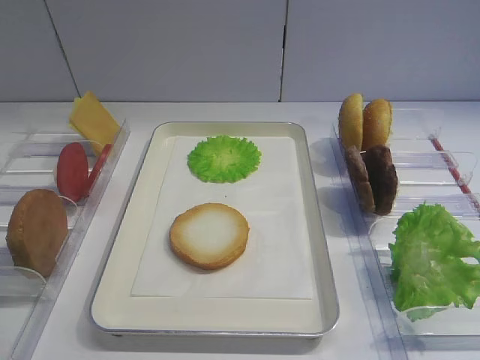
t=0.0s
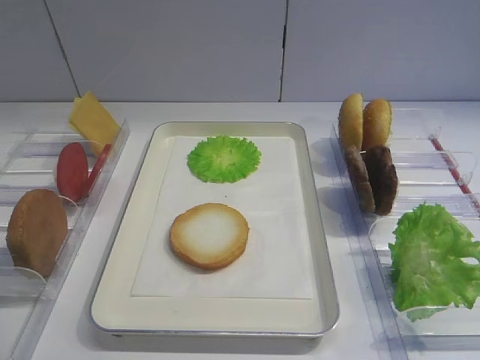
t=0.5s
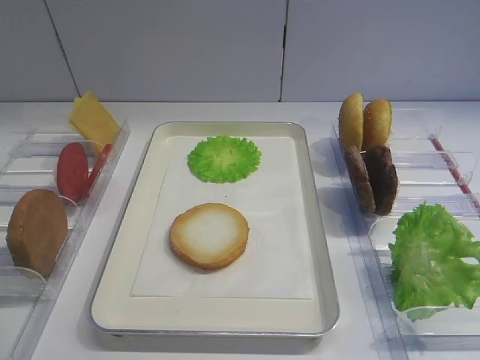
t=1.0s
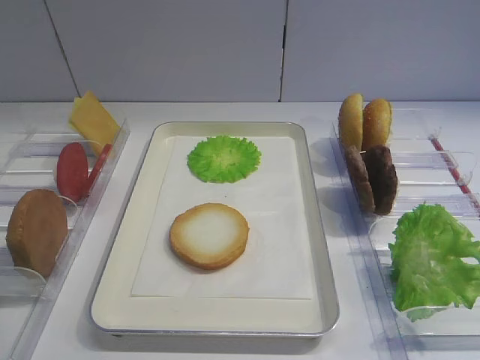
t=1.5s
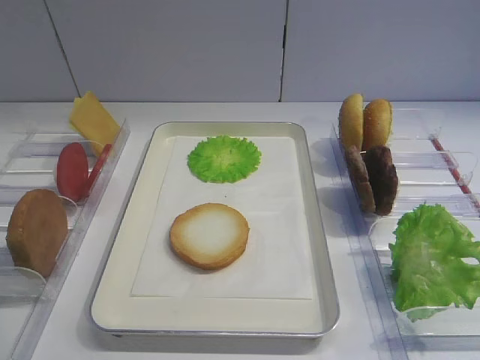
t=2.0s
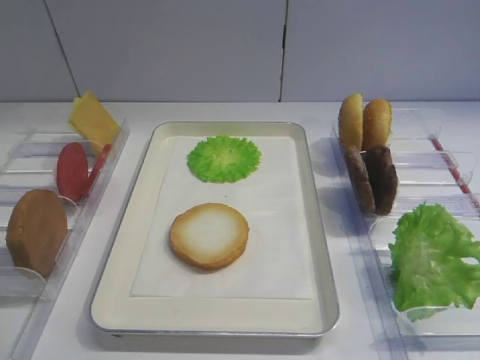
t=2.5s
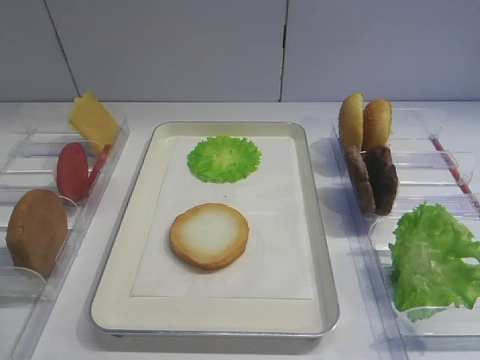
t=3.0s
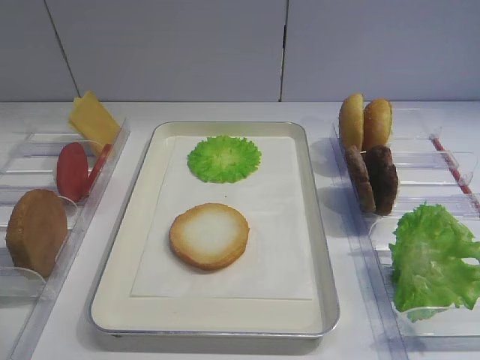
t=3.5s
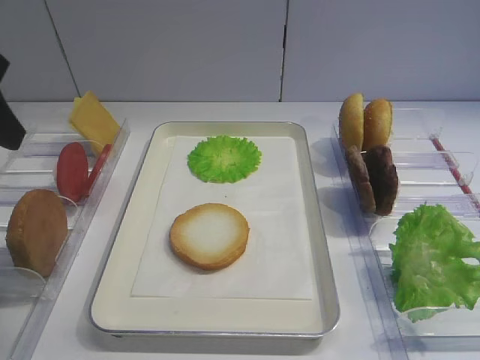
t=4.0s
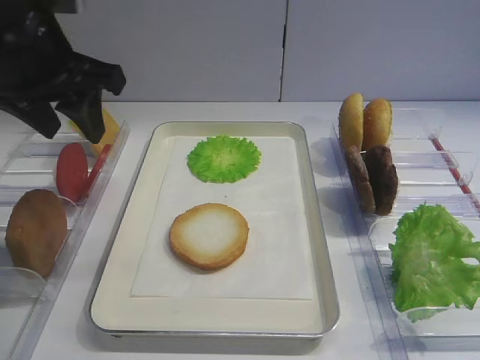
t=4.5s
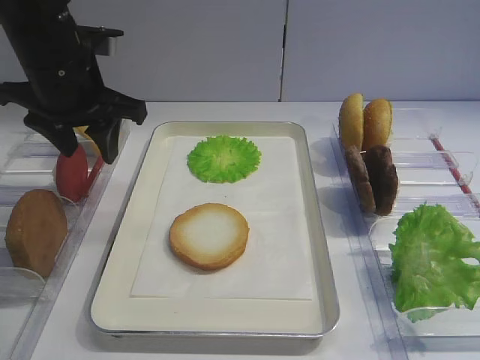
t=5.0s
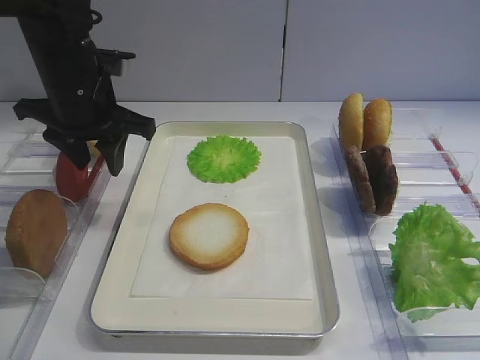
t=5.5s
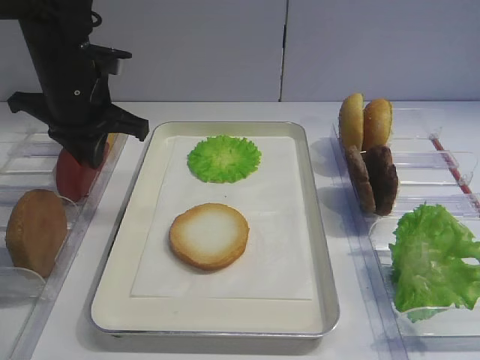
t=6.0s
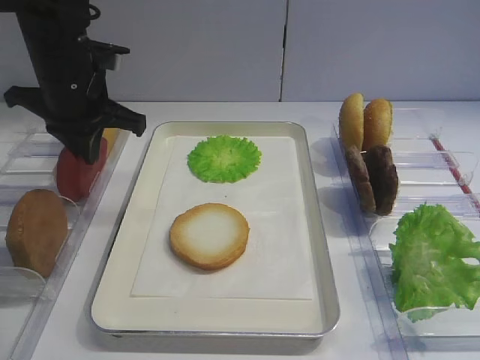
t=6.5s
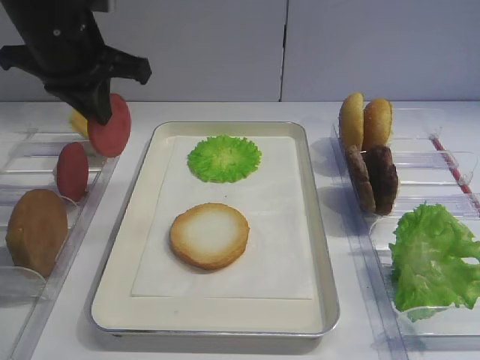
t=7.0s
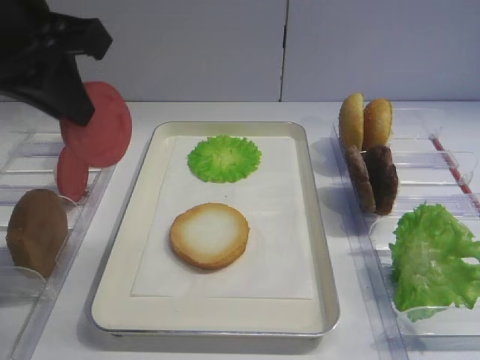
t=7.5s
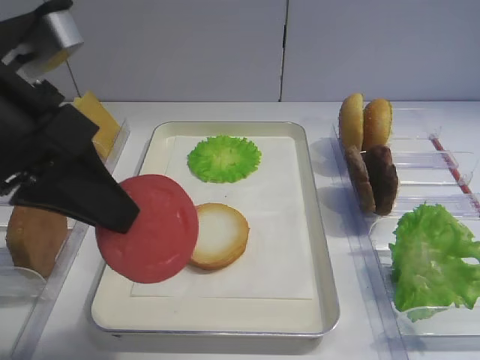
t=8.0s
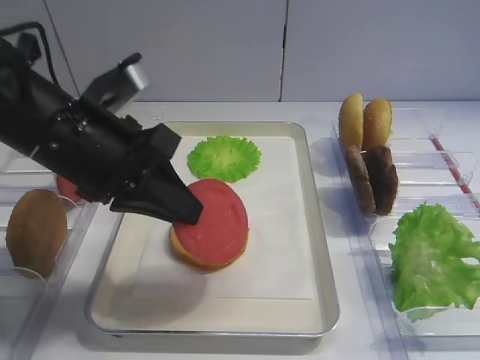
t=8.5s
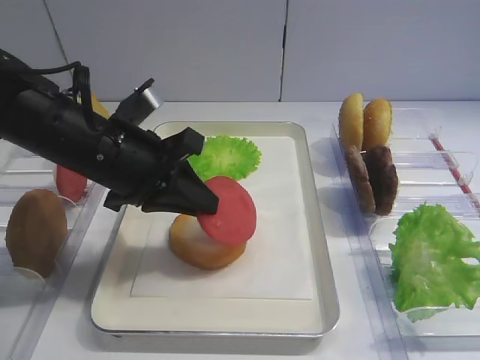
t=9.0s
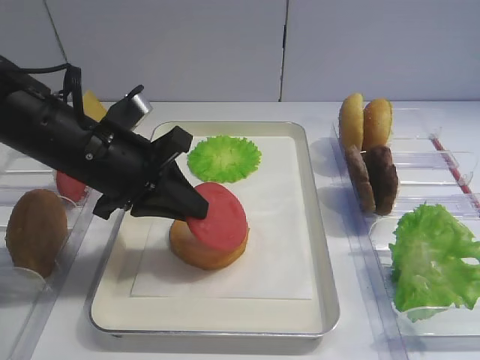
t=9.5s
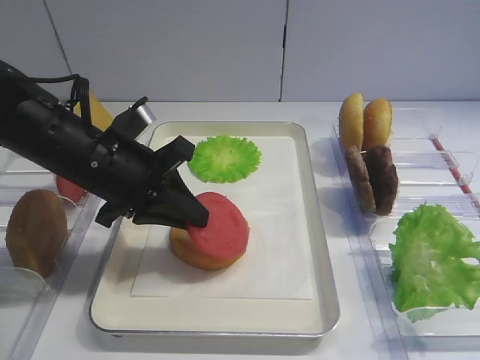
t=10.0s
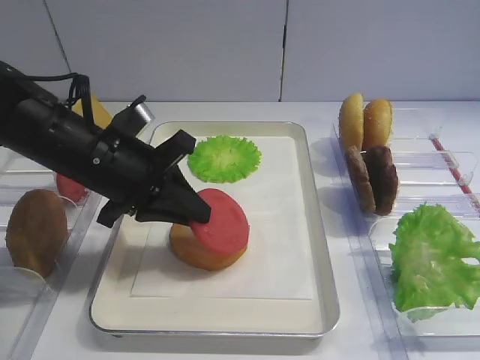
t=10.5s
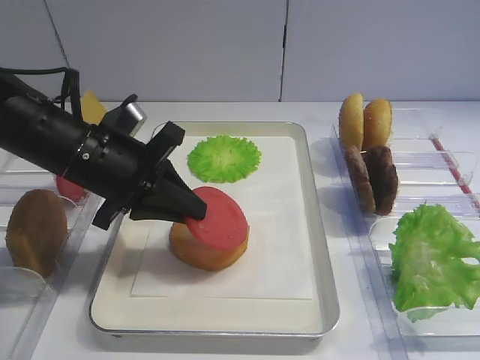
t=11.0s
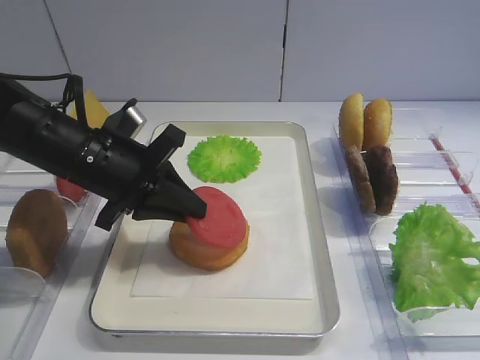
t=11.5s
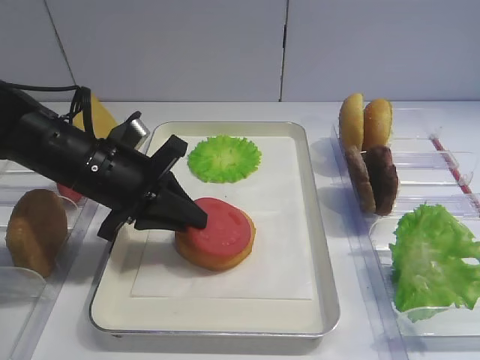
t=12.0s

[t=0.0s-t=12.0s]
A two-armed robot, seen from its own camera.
Step, t=0.0s to t=6.5s: Pick up the tomato slice with the left gripper.
t=2.0s to t=4.0s: The left gripper shifts about 25 cm forward.
t=4.0s to t=6.0s: The left gripper travels forward, downward and to the right by roughly 20 cm, and closes.
t=6.0s to t=8.0s: The left gripper is displaced backward and upward by approximately 20 cm.
t=8.0s to t=10.0s: The left gripper is displaced downward and forward by some 15 cm.
t=10.0s to t=12.0s: There are only small adjustments of the grippers.

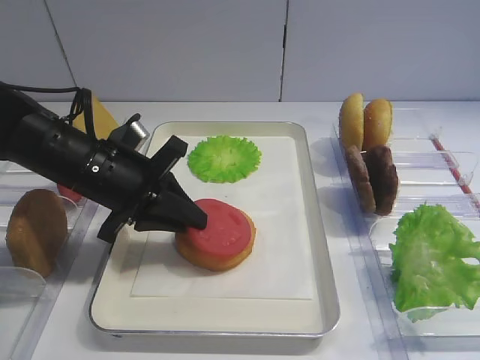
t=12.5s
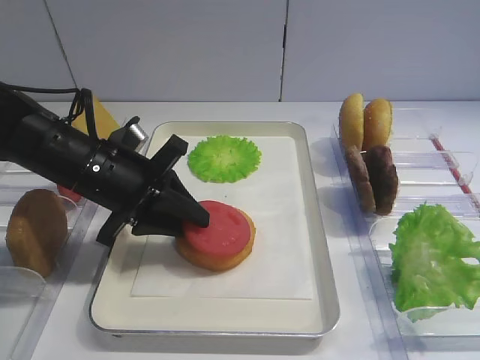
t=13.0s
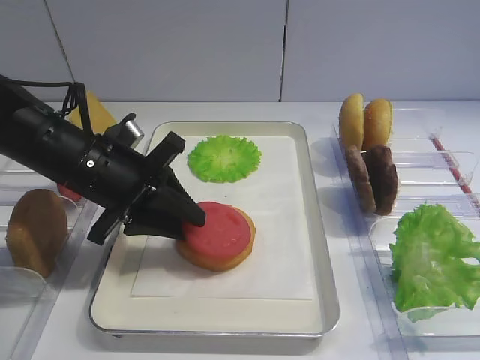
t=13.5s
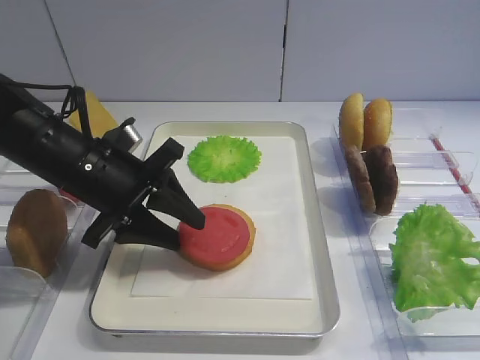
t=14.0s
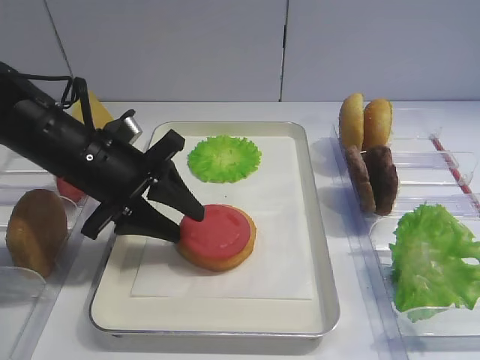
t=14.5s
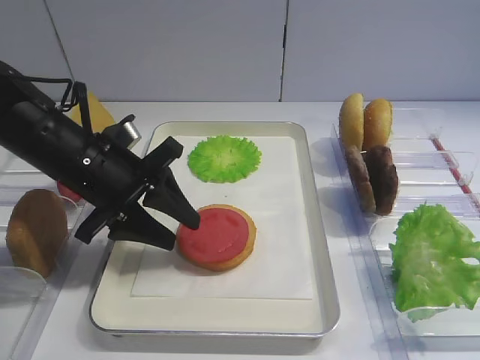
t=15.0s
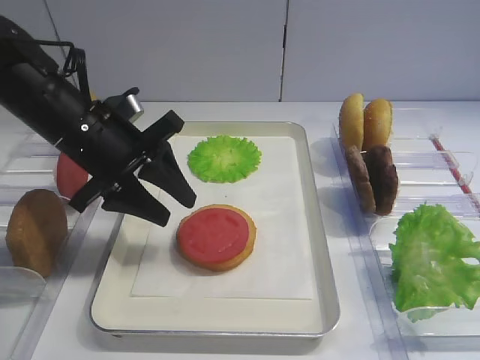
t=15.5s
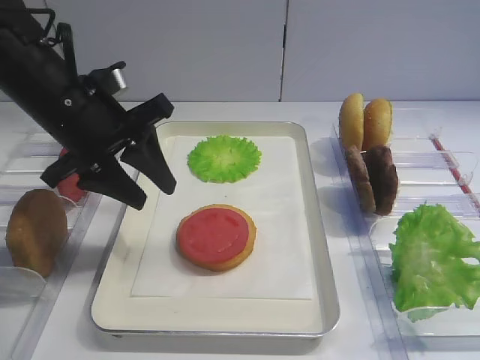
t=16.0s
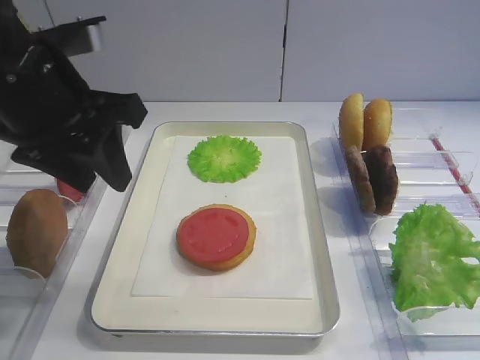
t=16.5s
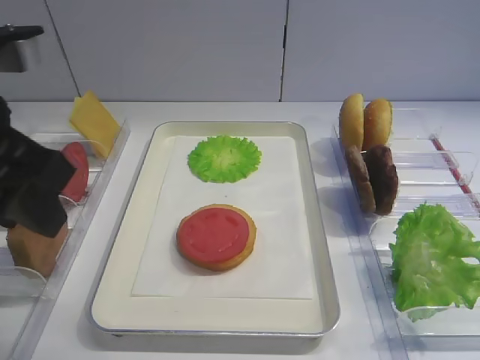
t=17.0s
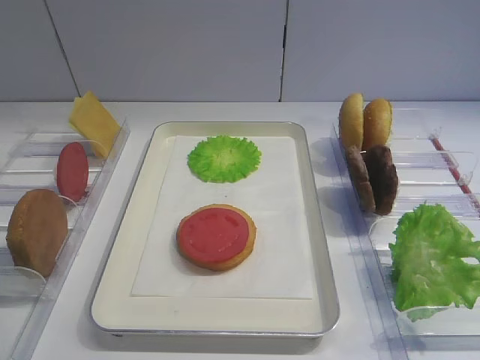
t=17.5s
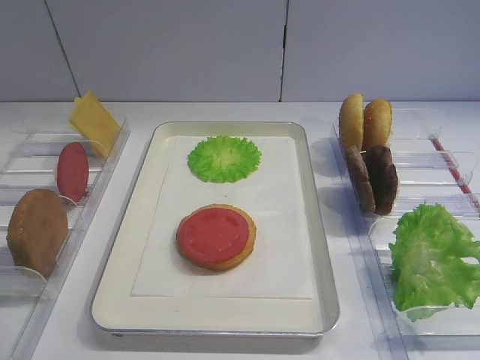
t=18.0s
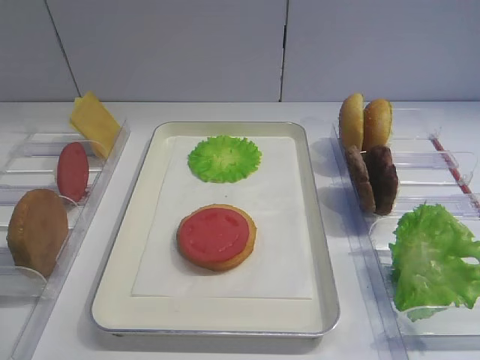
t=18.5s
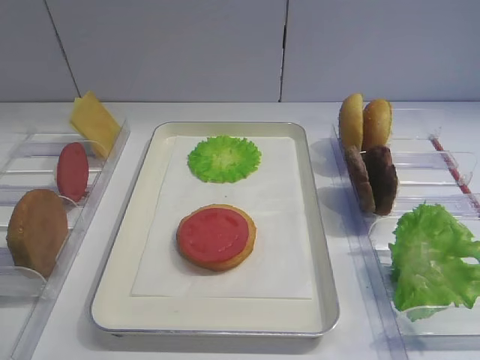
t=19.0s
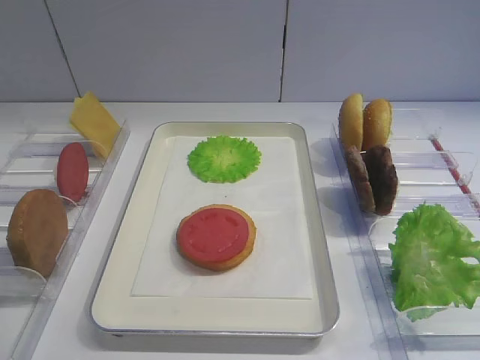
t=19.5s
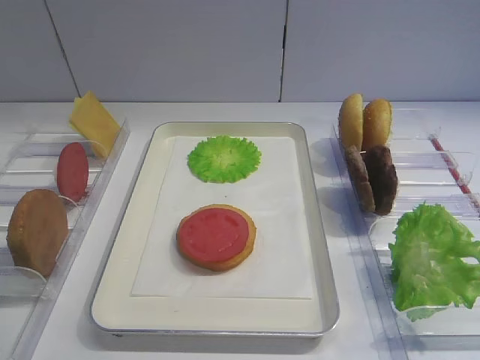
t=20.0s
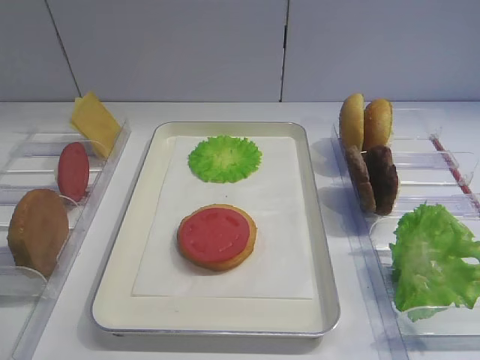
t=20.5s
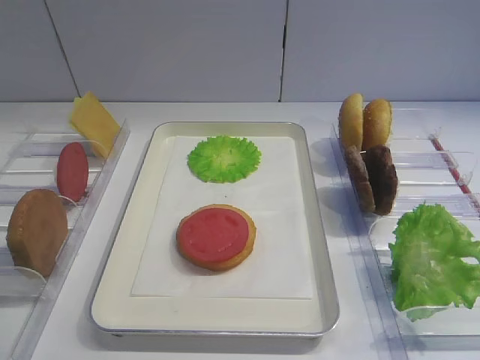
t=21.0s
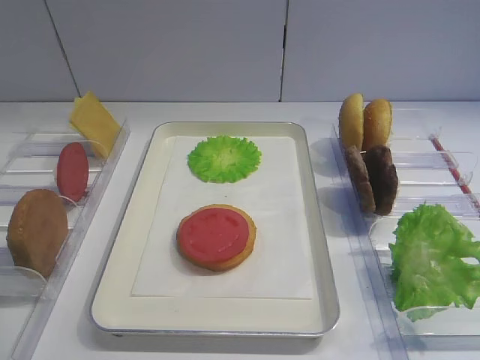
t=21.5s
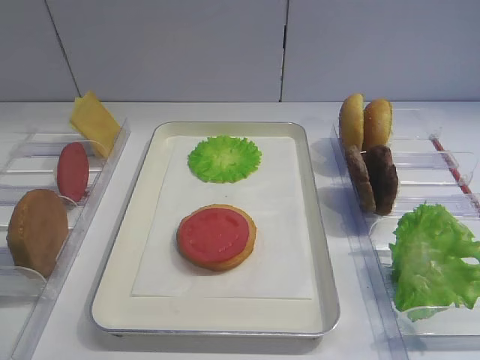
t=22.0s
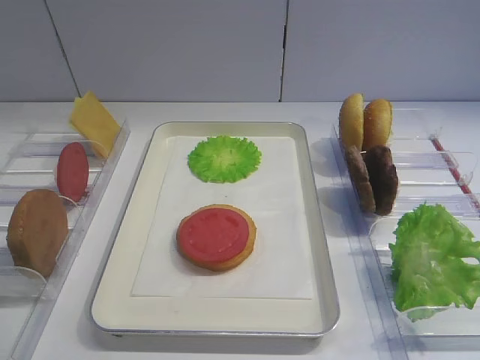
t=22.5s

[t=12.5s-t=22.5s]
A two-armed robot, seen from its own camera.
Step, t=12.5s to t=15.0s: Place the tomato slice on the bread slice with the left gripper.
t=12.5s to t=14.5s: The left gripper opens up.
t=14.5s to t=16.5s: The left gripper goes about 10 cm upward.
t=16.5s to t=18.5s: The left gripper is displaced backward and to the left by some 30 cm.

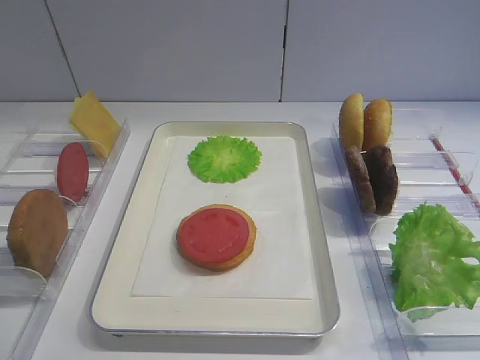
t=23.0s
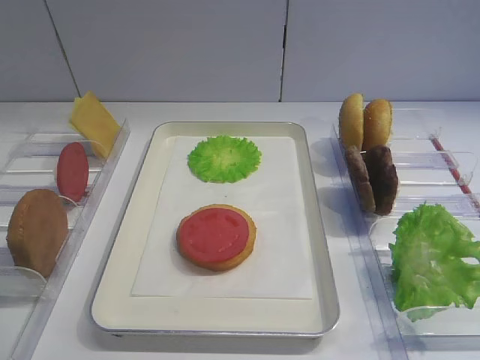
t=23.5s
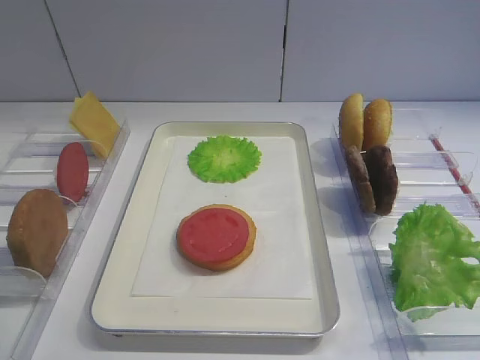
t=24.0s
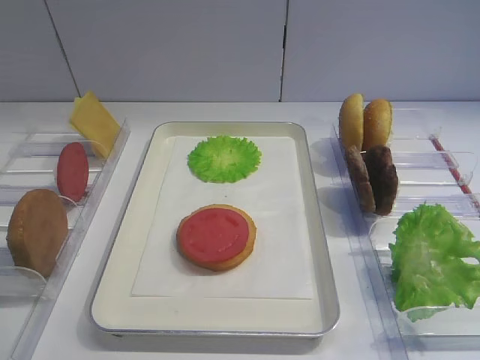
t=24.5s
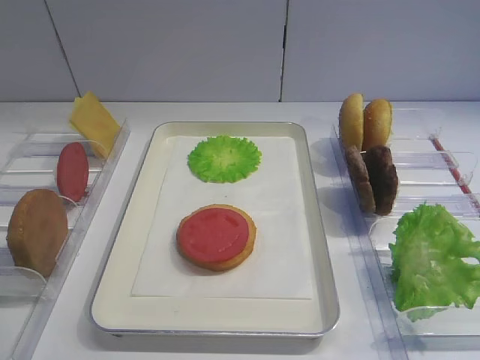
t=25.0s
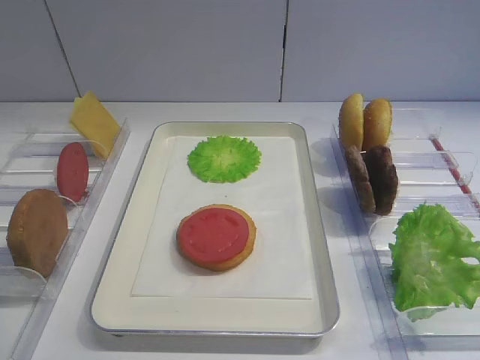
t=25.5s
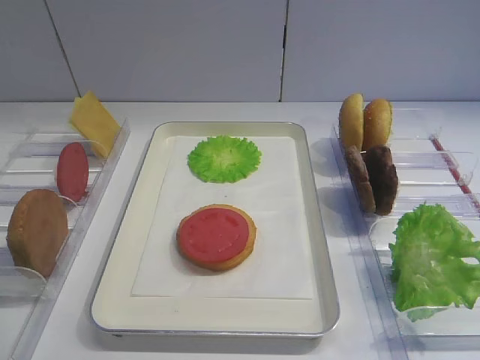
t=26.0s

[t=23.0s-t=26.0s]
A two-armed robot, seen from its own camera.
t=23.0s to t=26.0s: Both grippers stay about where they are.

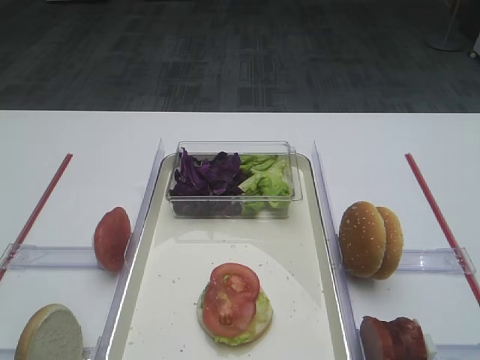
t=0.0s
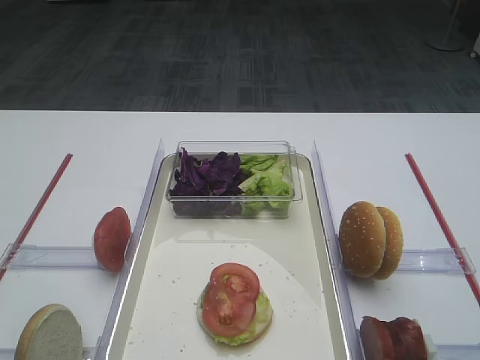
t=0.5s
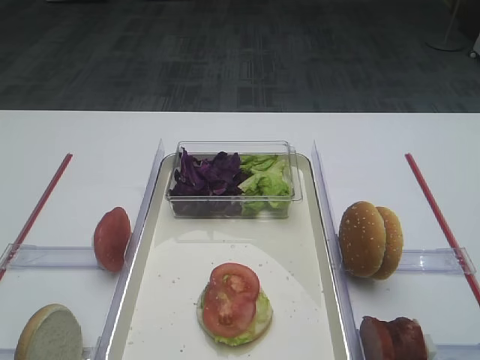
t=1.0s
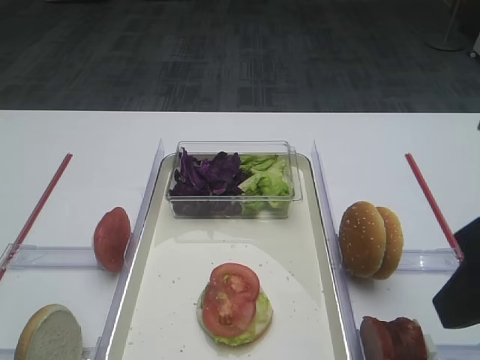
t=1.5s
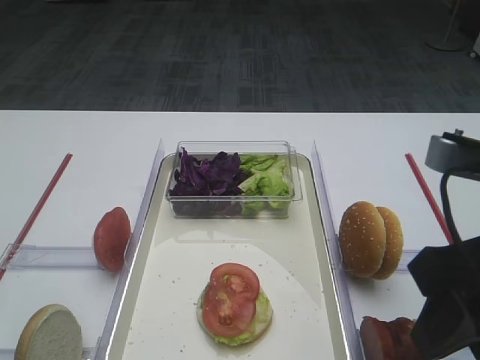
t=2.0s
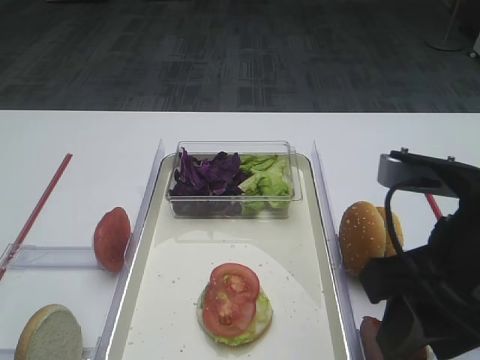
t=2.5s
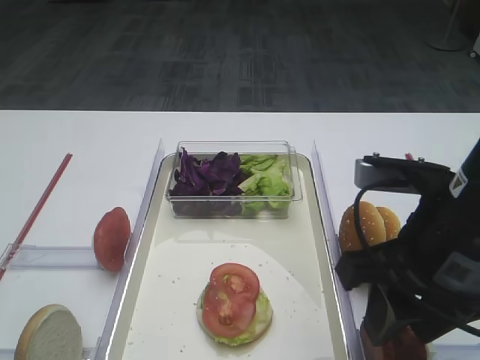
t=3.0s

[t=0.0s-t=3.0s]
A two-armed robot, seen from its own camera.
t=0.0s to t=1.5s: The right gripper shifts roughly 10 cm forward.
t=1.5s to t=3.0s: The right gripper moves downward and to the left, about 10 cm.
